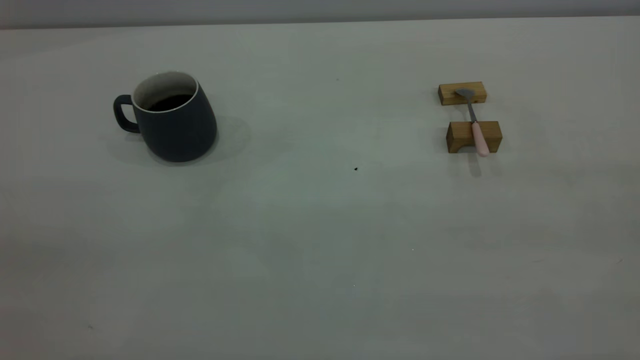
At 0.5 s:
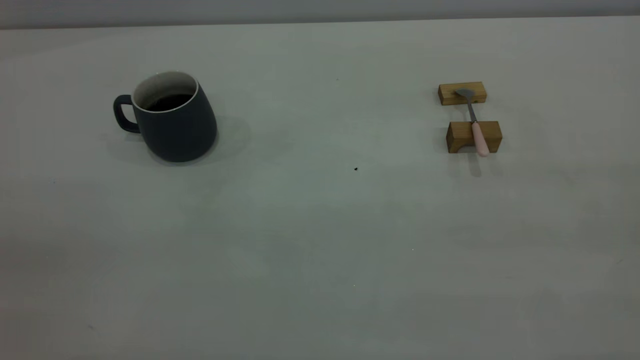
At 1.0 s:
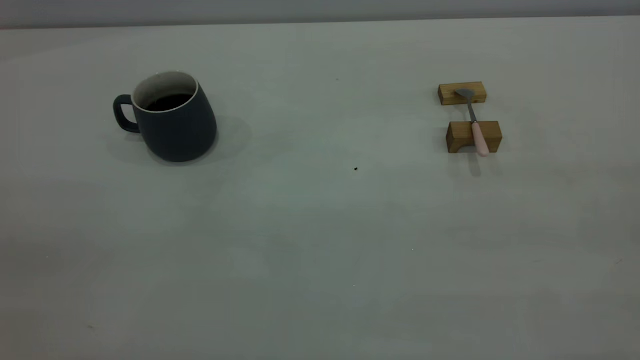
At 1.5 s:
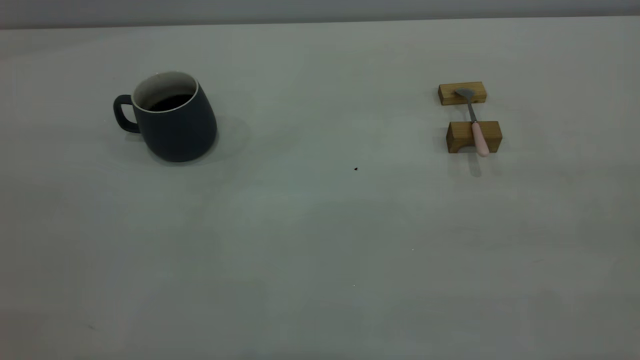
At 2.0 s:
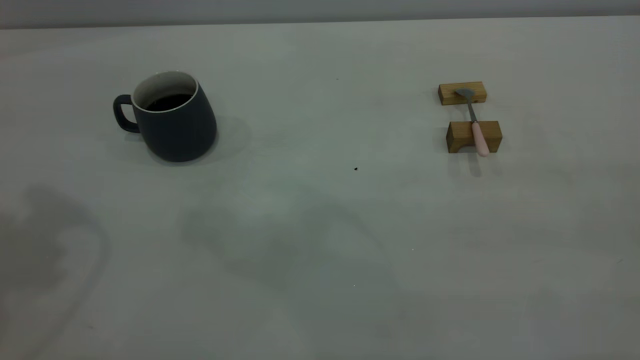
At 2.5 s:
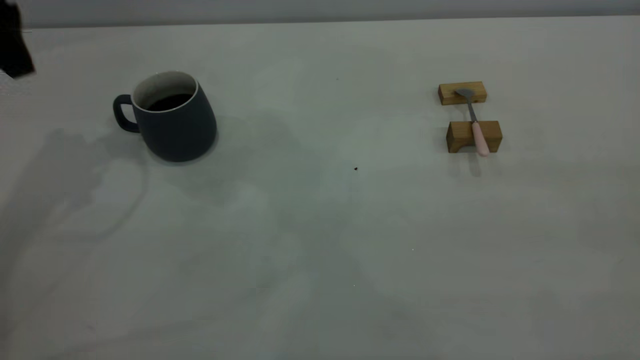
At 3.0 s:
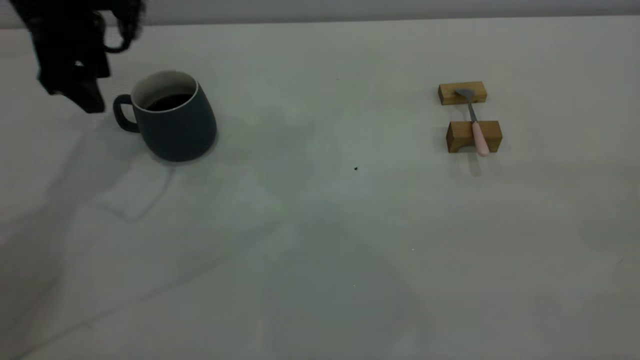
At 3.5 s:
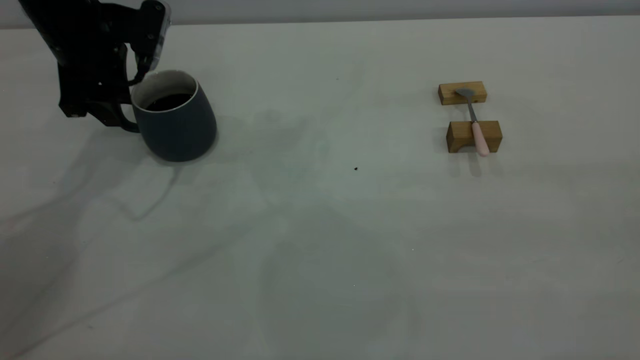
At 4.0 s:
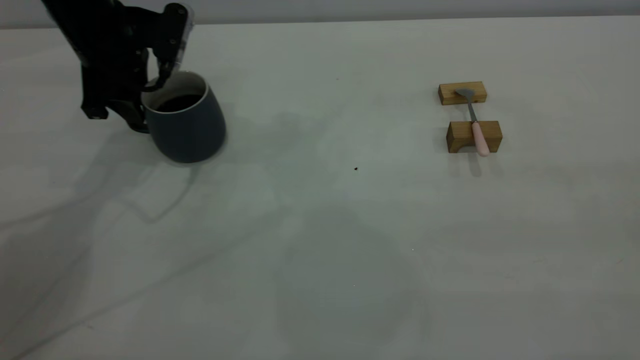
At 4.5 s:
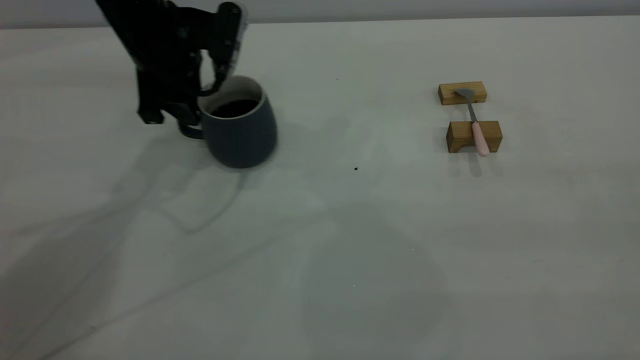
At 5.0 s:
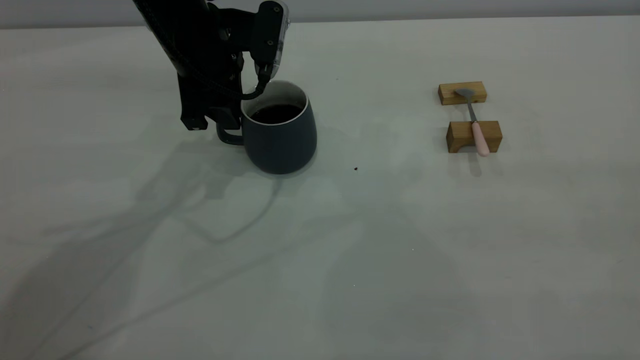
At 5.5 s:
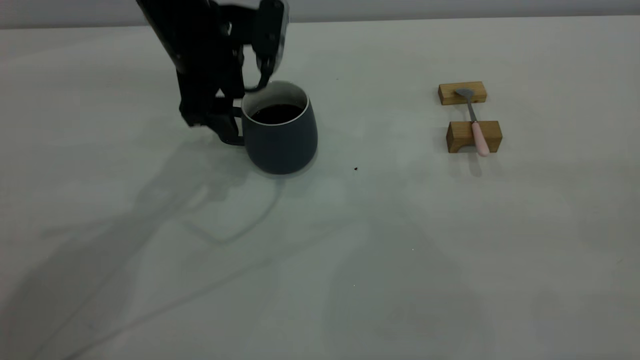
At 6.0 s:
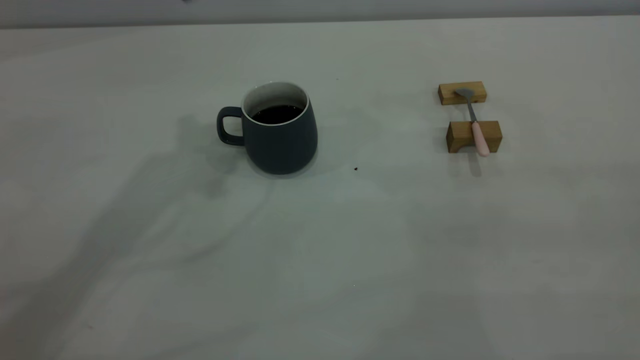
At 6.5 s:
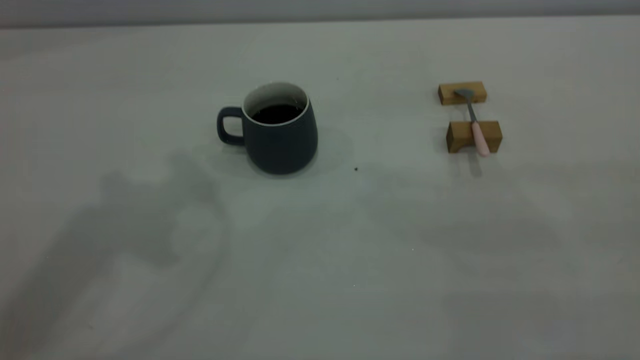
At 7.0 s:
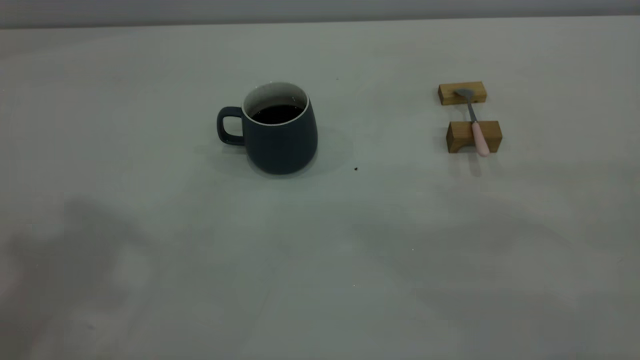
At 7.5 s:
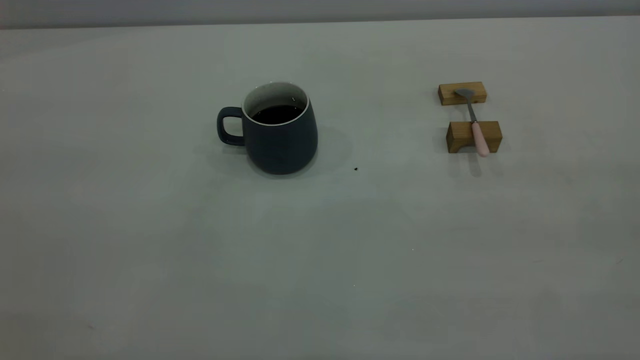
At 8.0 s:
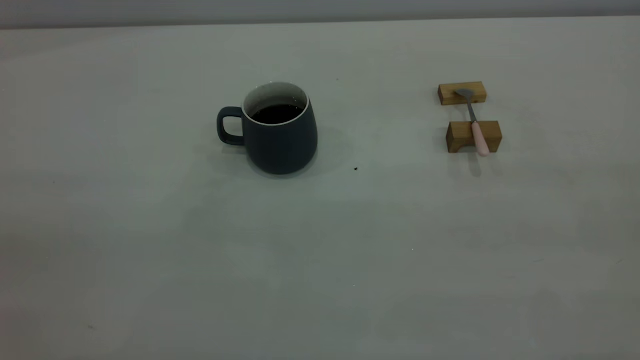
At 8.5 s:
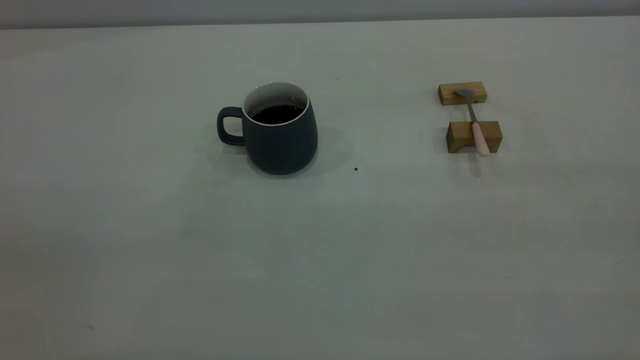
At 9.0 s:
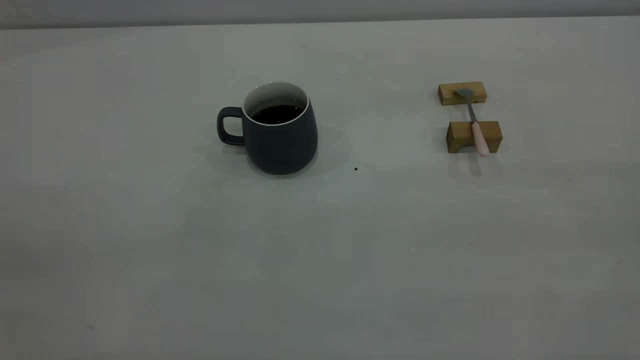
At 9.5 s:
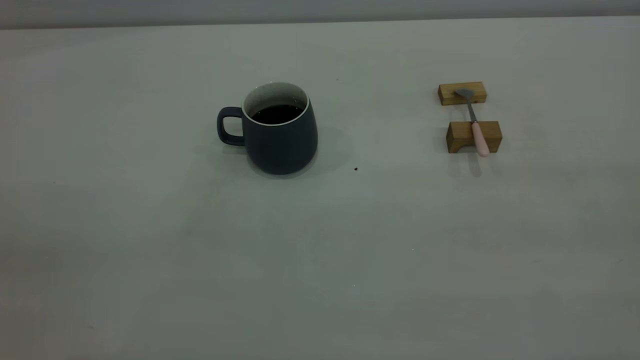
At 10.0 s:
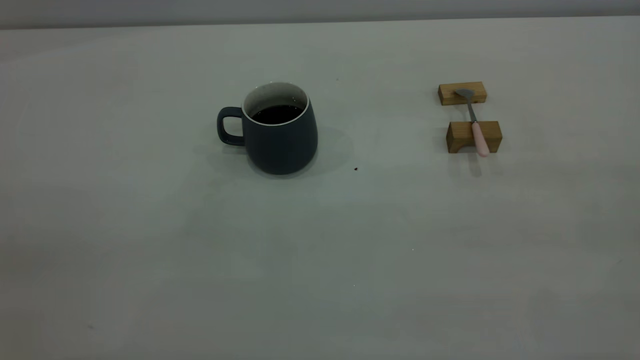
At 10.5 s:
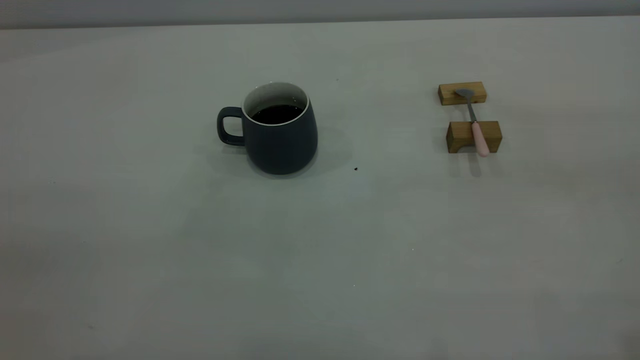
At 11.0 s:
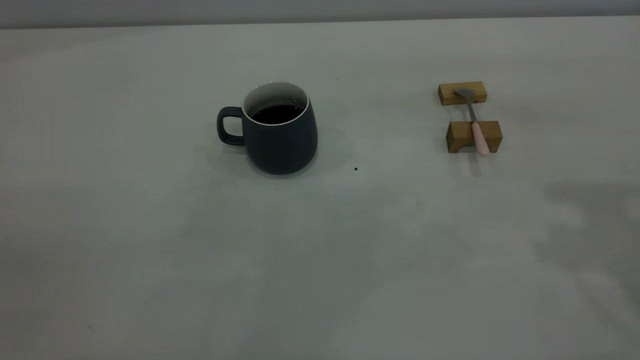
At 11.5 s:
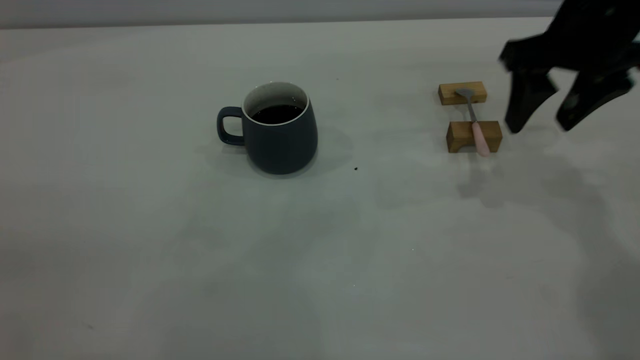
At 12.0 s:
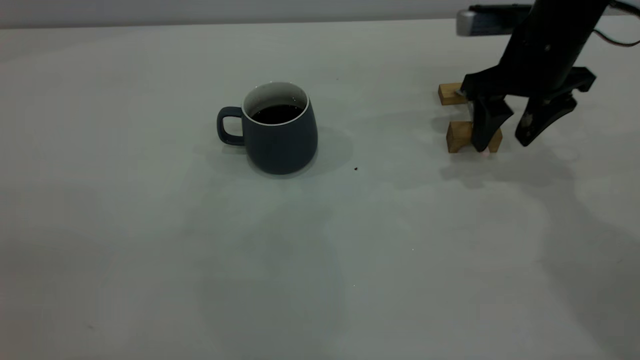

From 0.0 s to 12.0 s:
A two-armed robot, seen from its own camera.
Step, from 0.0 s to 5.5 s: Move the cup with coffee to the center of view.
From 2.0 s to 4.0 s: The left gripper goes about 25 cm downward and forward, and closes its fingers.
From 4.0 s to 6.0 s: The left gripper goes some 20 cm upward and to the right, and opens, then closes once more.
From 10.0 s to 12.0 s: The right gripper heads forward and downward, covering approximately 50 cm, and opens its fingers.

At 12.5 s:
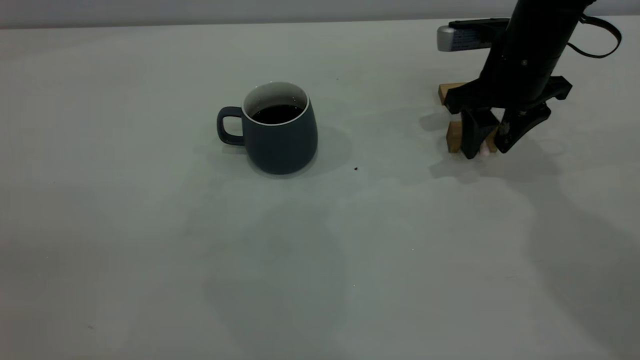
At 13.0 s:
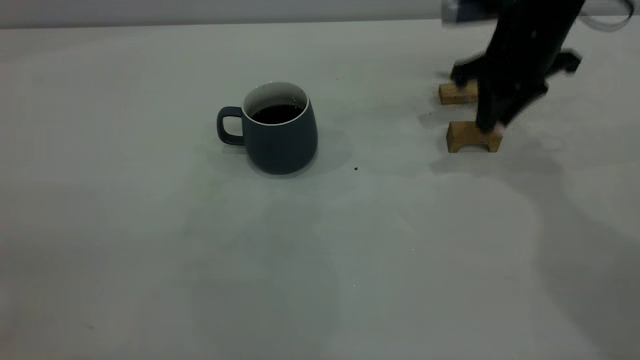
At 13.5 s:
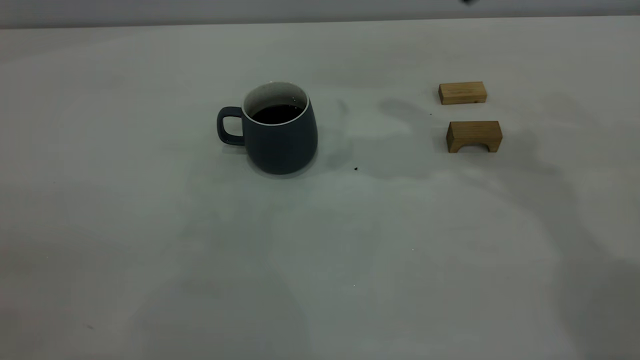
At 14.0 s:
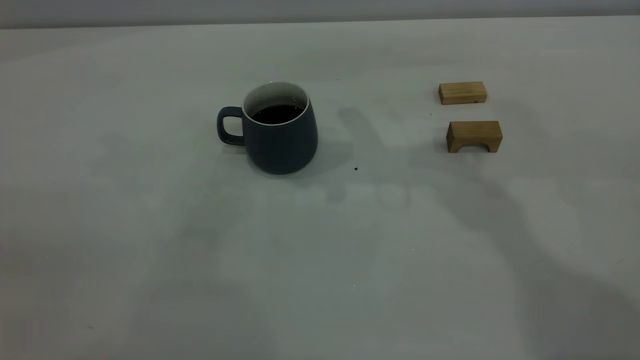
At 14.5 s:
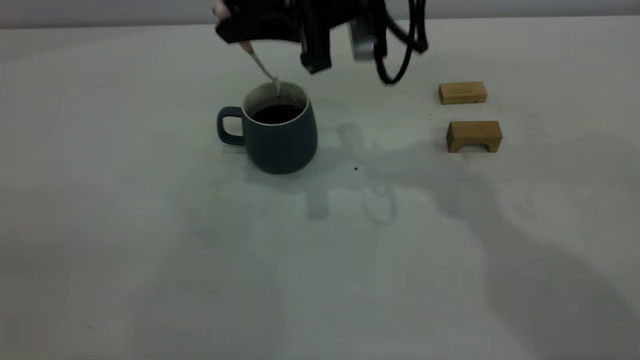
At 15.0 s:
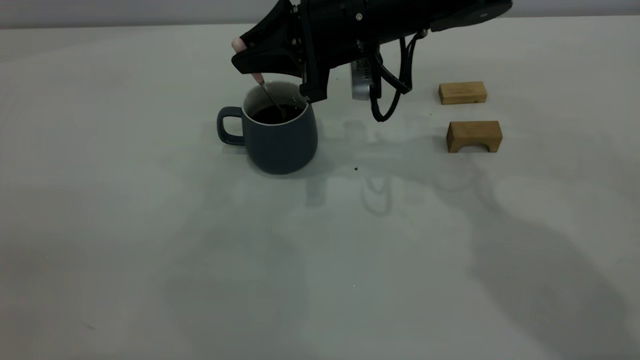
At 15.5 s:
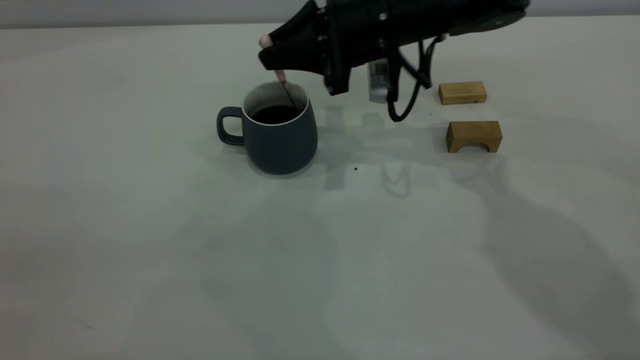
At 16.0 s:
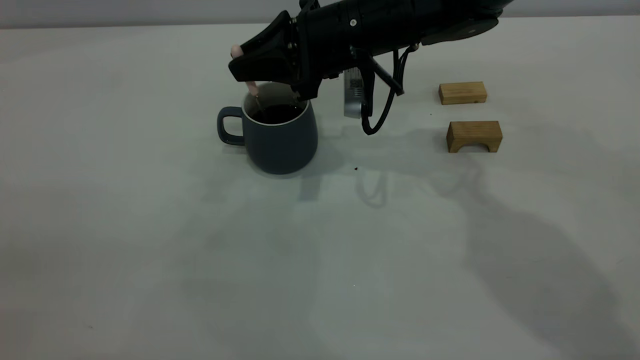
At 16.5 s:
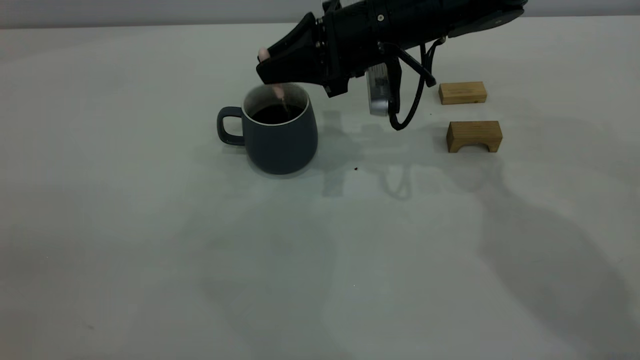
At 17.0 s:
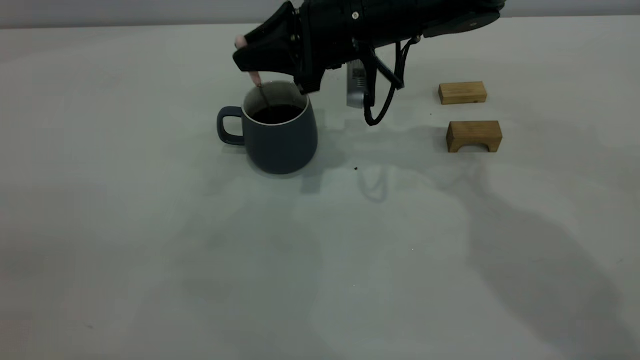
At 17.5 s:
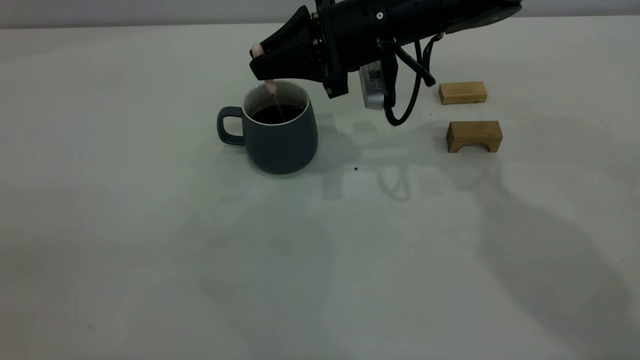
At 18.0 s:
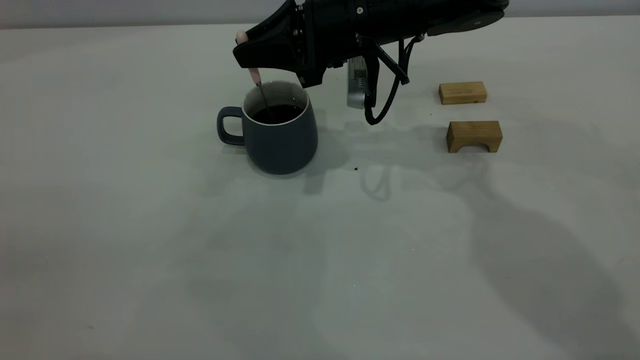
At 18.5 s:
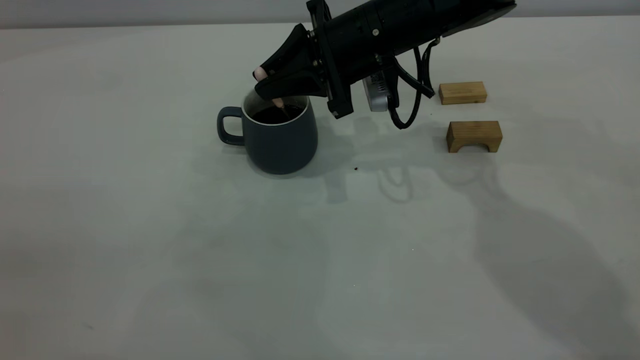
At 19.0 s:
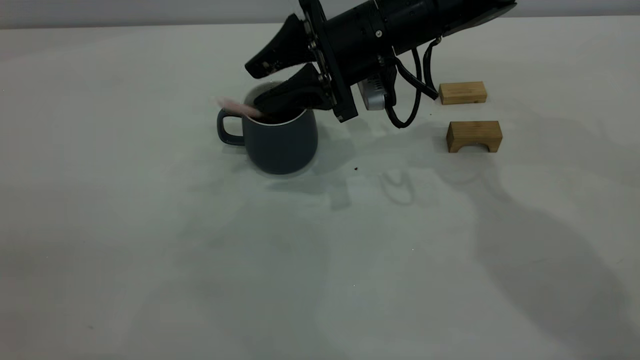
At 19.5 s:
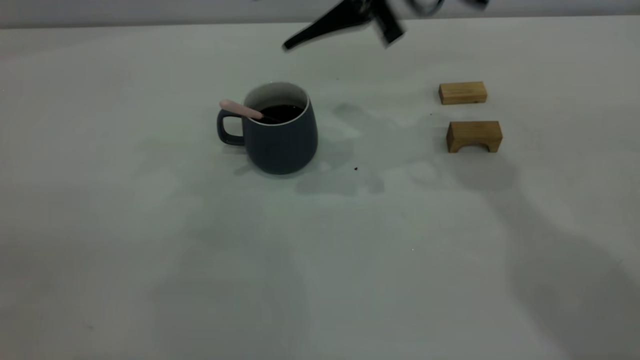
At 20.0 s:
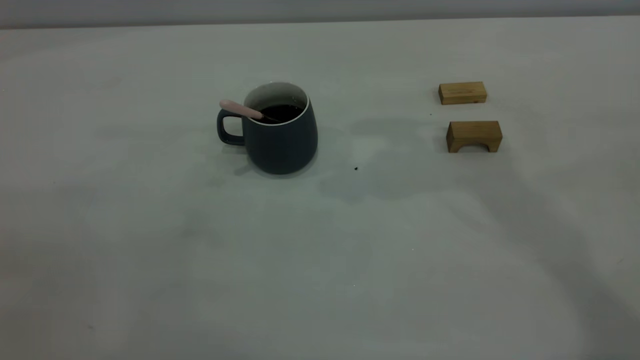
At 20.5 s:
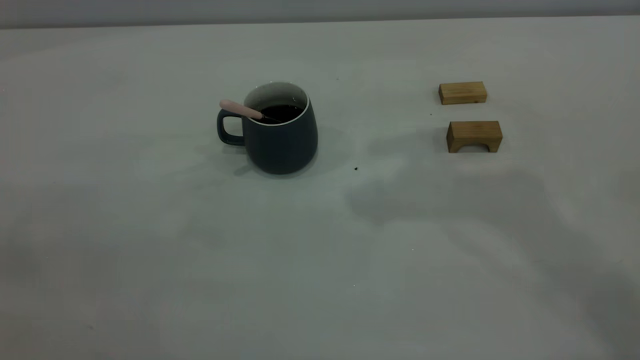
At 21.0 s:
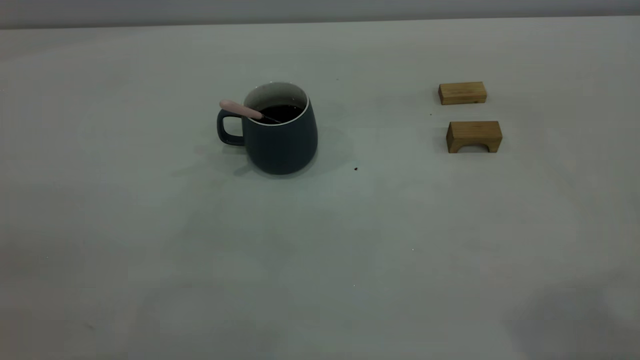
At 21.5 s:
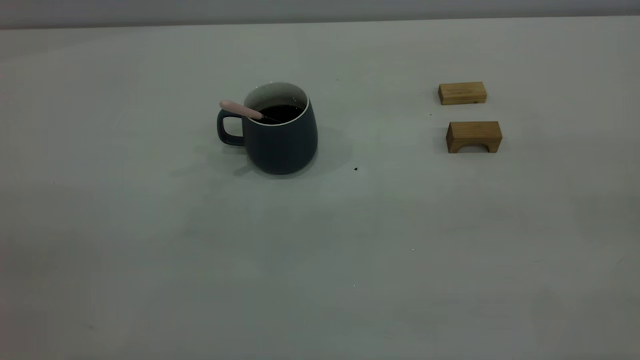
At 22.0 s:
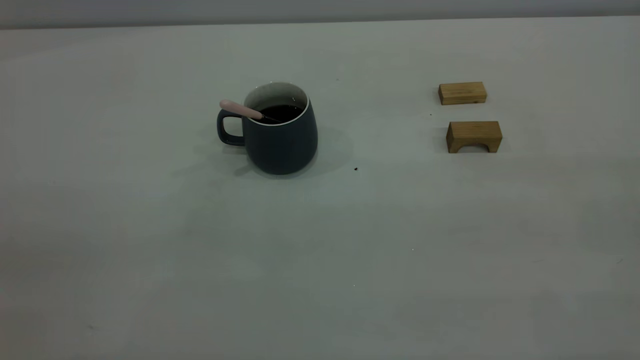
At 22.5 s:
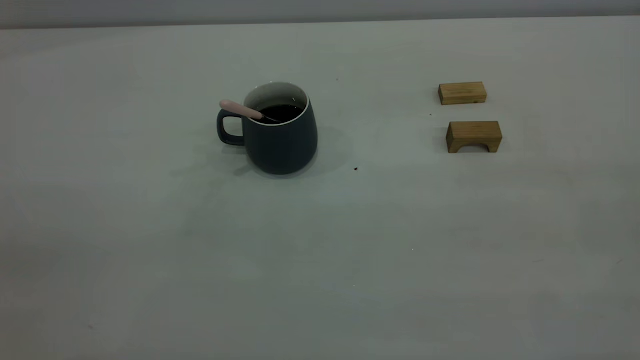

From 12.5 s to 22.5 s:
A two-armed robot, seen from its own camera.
Step, from 13.5 s to 19.0 s: Stir the coffee in the cup.
From 12.5 s to 14.5 s: The right gripper travels to the left and upward by about 20 cm, and closes up.
From 14.5 s to 16.5 s: The right gripper is displaced downward by approximately 5 cm.
From 16.5 s to 18.5 s: The grippers move only a little.
From 18.5 s to 20.5 s: The right gripper is displaced upward by roughly 35 cm, and opens up.
